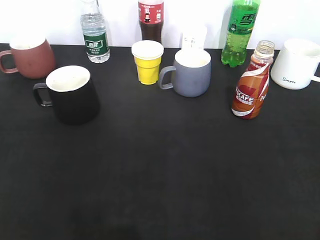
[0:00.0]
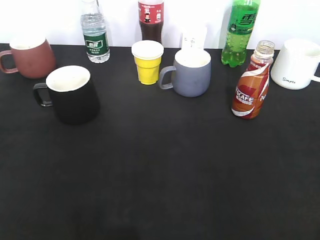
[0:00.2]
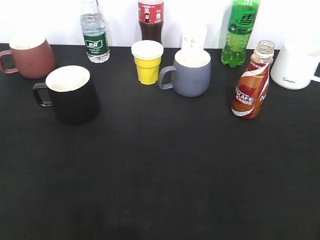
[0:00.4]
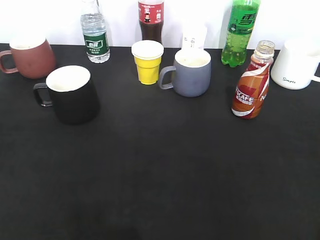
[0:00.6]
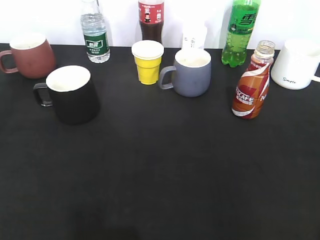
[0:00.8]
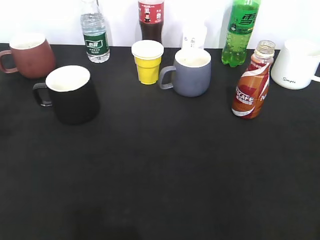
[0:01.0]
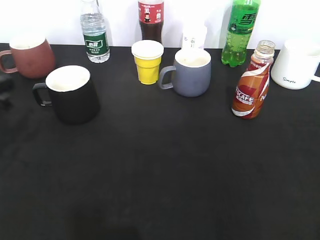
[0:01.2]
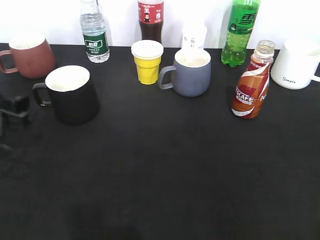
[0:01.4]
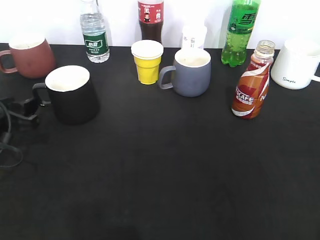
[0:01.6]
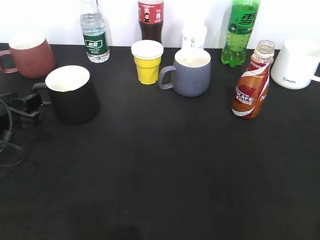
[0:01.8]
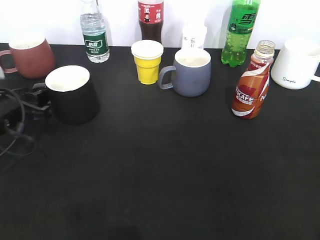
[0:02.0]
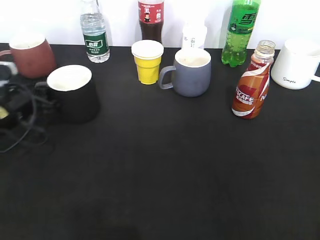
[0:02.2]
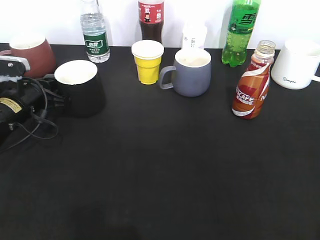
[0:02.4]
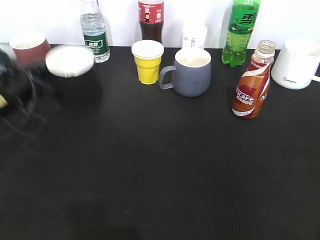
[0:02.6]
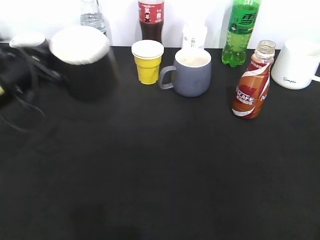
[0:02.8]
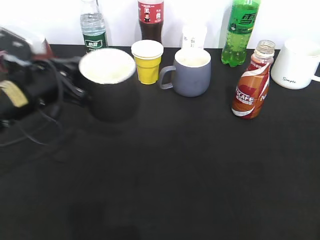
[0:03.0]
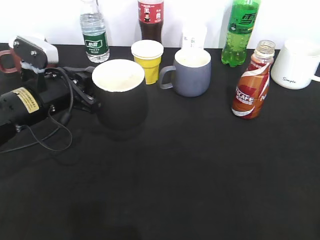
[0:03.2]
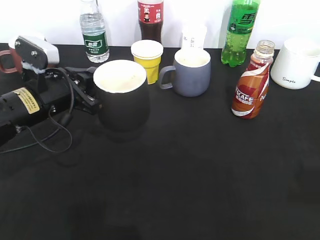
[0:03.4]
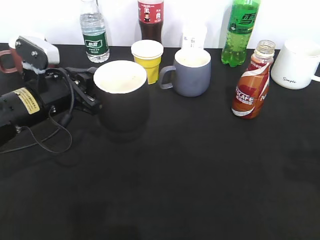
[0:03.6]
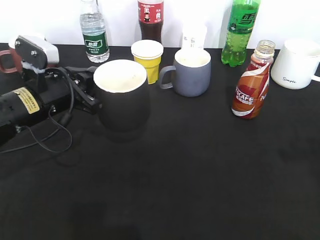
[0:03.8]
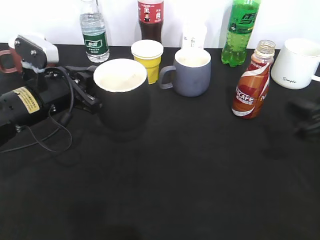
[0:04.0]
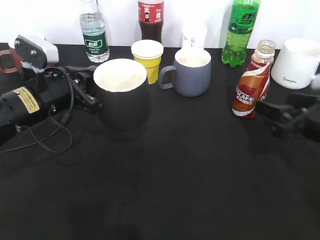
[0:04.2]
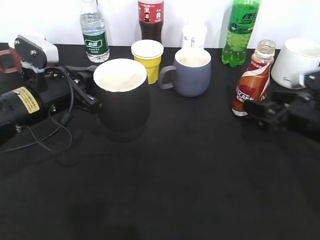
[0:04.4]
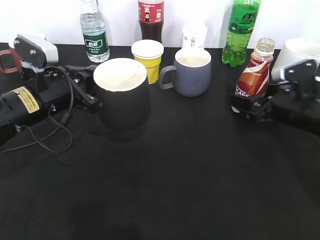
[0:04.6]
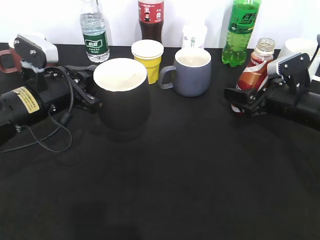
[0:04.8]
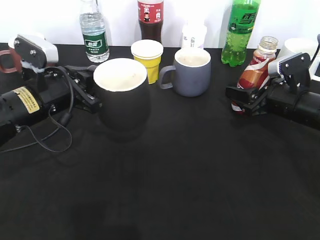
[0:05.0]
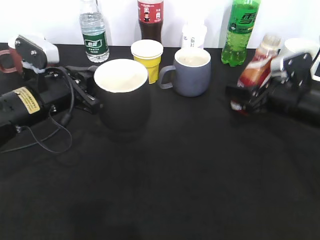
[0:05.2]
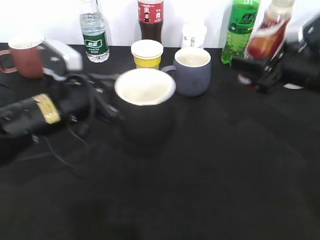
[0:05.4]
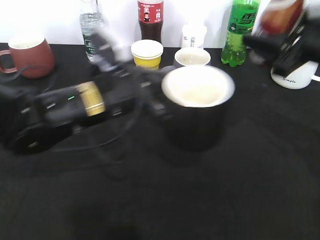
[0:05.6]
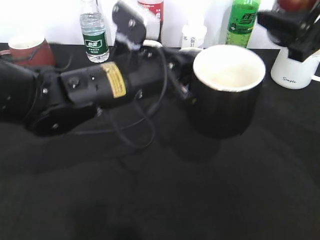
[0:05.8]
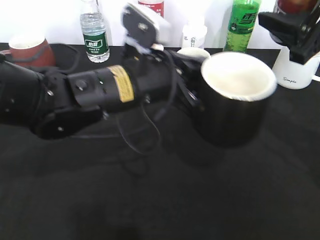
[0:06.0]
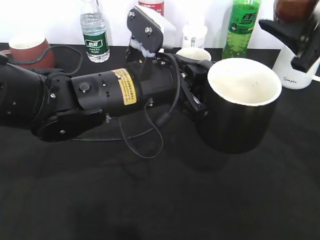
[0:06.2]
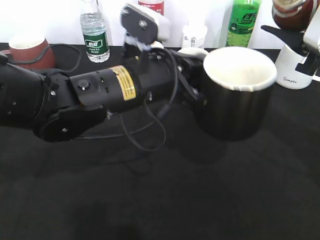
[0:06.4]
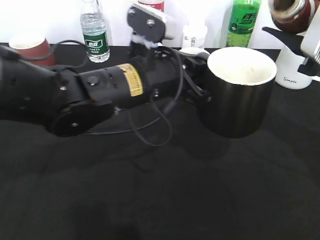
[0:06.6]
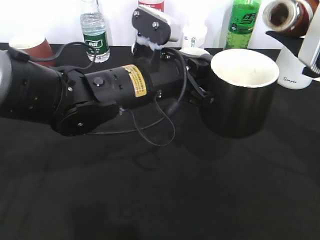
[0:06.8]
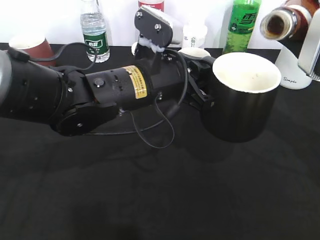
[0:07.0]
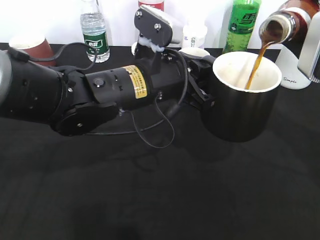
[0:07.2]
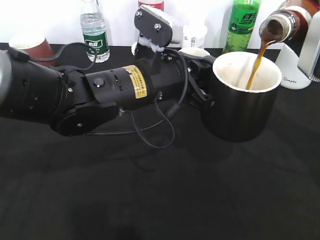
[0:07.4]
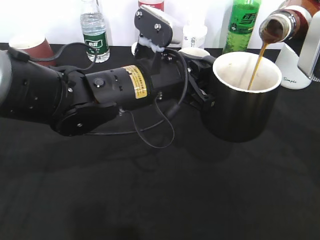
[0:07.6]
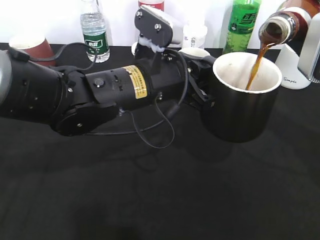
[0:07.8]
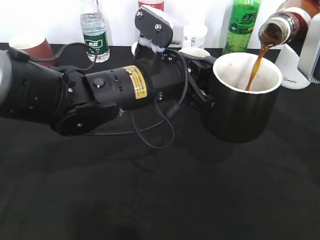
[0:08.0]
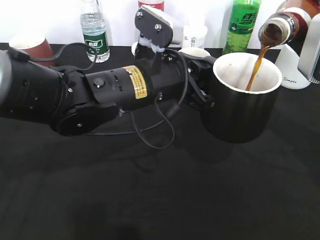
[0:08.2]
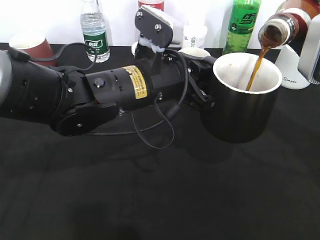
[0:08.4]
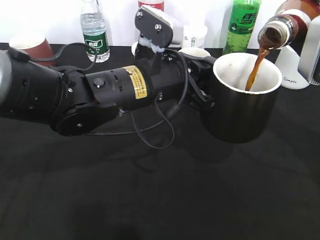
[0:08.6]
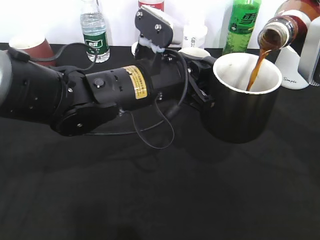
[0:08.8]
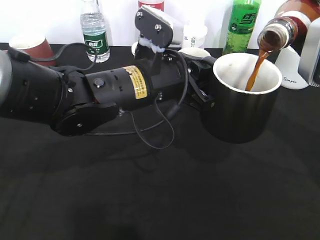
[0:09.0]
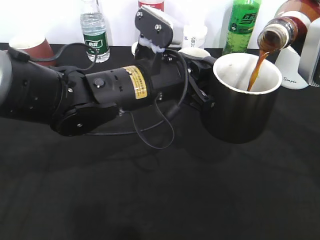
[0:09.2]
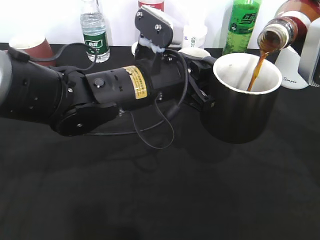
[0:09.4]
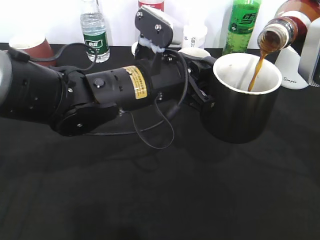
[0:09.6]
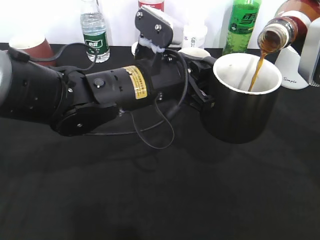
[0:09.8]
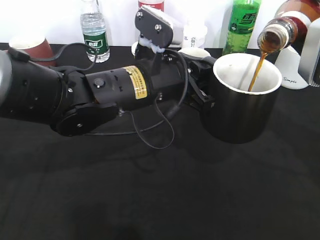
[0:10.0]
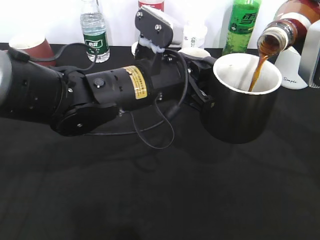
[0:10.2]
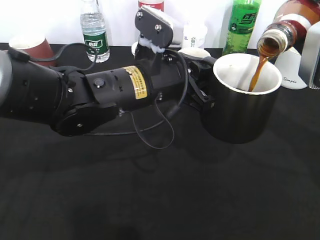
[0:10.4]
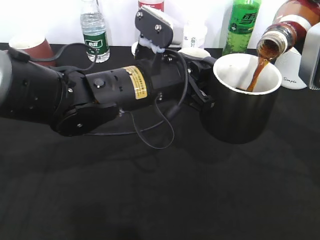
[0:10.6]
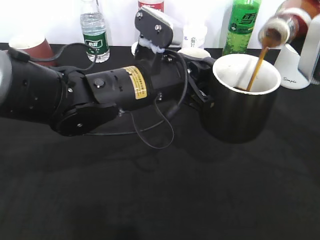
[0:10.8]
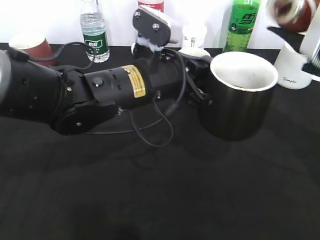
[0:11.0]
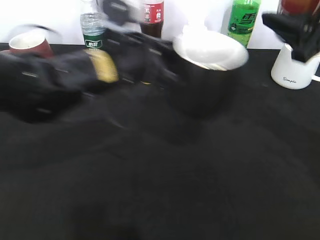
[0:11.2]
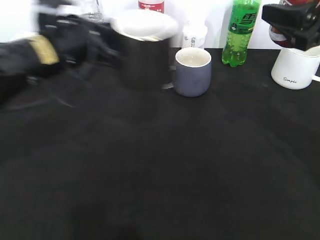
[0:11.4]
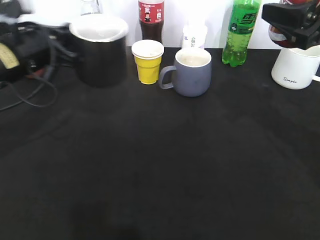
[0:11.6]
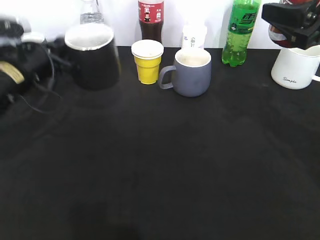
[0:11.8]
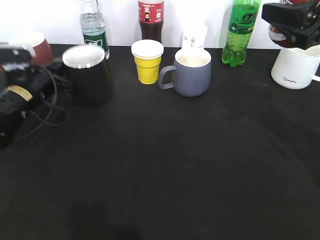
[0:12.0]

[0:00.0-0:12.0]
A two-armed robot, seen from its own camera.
Step, 0:00.6 to 0:02.2: Grasp the black cup with left gripper.
Step, 0:02.6 to 0:03.0: Lift the black cup with left gripper.
Step, 0:03.2 to 0:04.6: Grasp the bottle with coffee with right gripper.
Step, 0:05.0 to 0:11.0: Pour the coffee from bottle to cup with right gripper.
0:00.0 to 0:01.6: The left gripper moves forward and downward, roughly 30 cm, and opens its fingers.
0:01.6 to 0:03.0: The left gripper is displaced to the right by about 10 cm, and closes its fingers.
0:03.0 to 0:04.4: The right gripper is displaced forward and downward by some 35 cm, and opens up.
0:04.4 to 0:06.0: The left gripper heads to the right, covering approximately 15 cm; the right gripper goes some 15 cm upward, and closes up.
0:07.6 to 0:09.0: The grippers make only small movements.
0:09.0 to 0:10.4: Both grippers stay about where they are.
0:10.4 to 0:12.0: The left gripper is displaced to the left, forward and downward by roughly 25 cm.

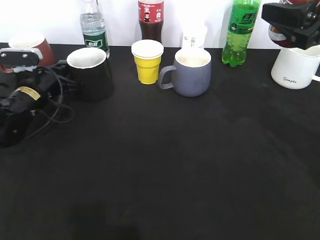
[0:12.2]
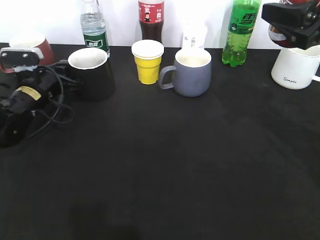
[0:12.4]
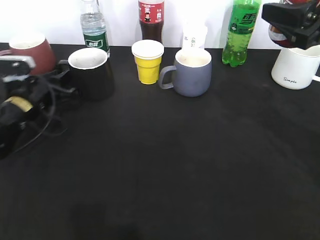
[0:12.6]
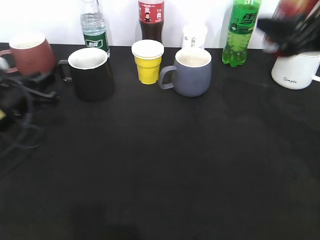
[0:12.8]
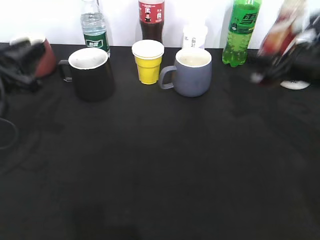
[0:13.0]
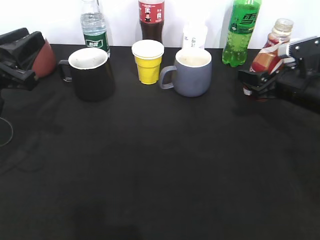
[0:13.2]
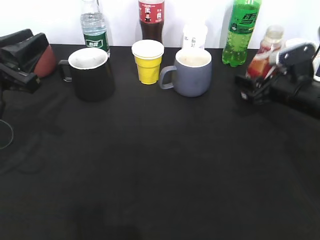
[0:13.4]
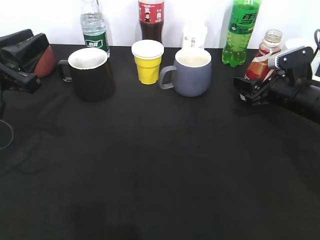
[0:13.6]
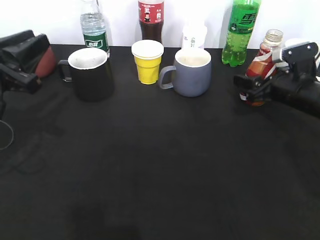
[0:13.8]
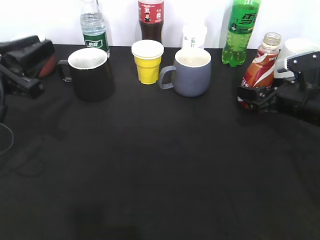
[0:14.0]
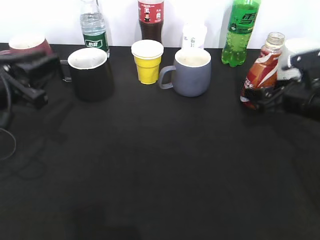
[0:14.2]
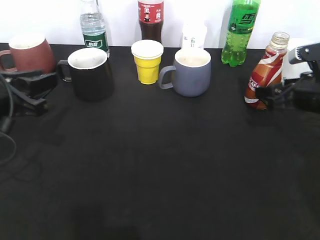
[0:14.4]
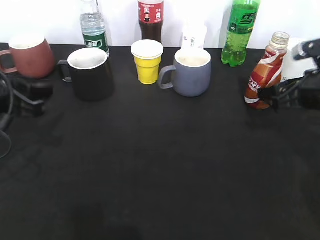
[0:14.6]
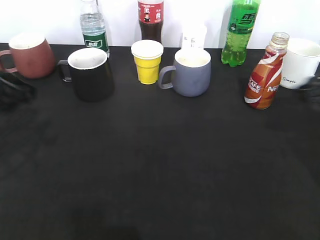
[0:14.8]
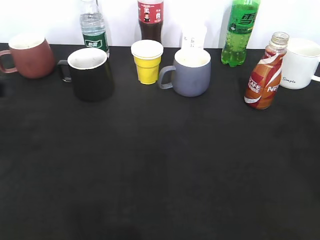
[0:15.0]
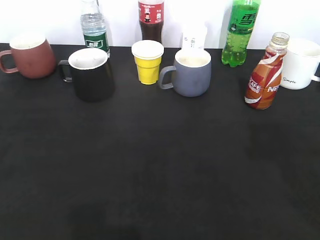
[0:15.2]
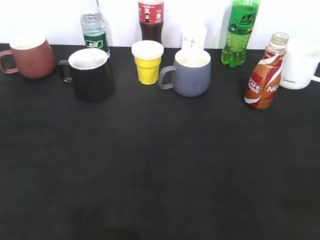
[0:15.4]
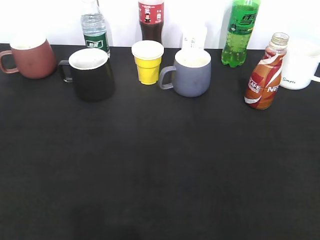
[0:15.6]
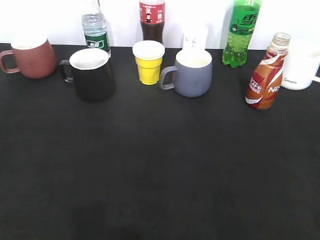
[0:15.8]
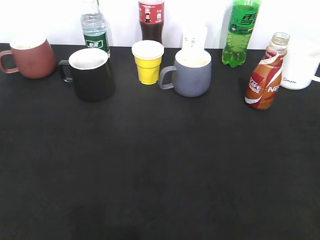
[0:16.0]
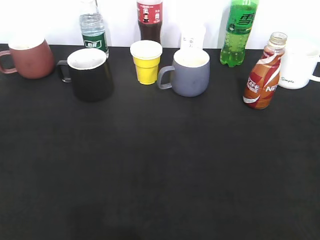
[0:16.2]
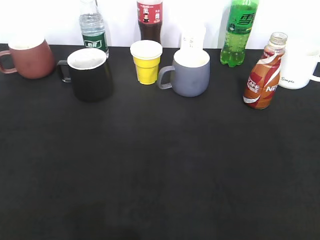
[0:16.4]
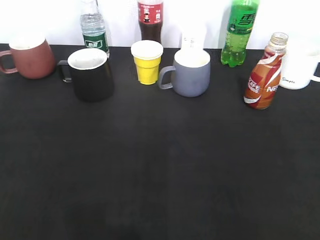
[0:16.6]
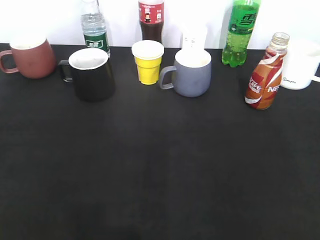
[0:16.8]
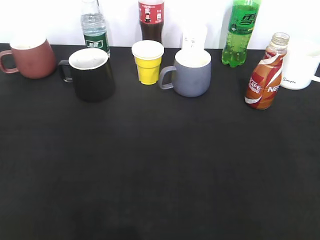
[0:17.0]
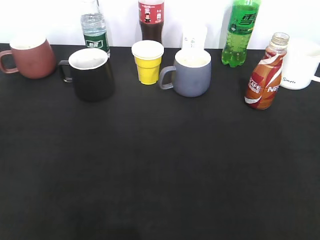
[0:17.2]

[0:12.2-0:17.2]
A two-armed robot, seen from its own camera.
Step, 0:12.8 to 0:14.4: Place the coffee bottle on the table with right gripper.
0:12.2 to 0:13.8: The left gripper goes approximately 20 cm backward and upward, and opens; the right gripper is displaced downward and forward by some 20 cm, and opens up.
0:13.8 to 0:15.6: The right gripper shifts approximately 40 cm backward and upward. The left gripper goes roughly 25 cm backward.

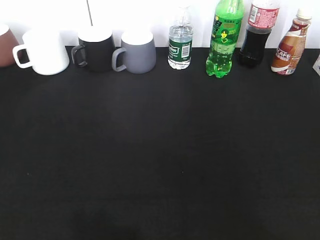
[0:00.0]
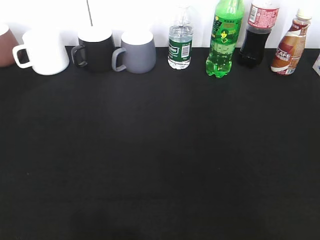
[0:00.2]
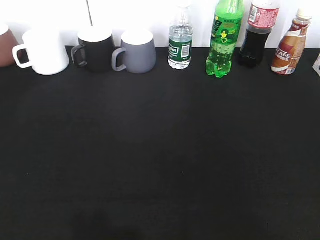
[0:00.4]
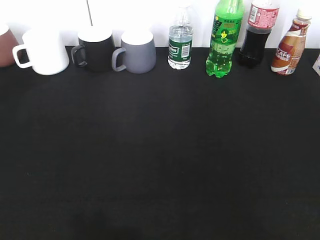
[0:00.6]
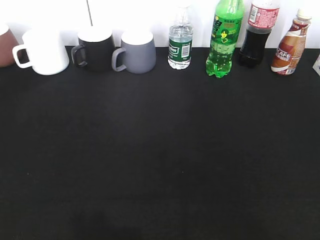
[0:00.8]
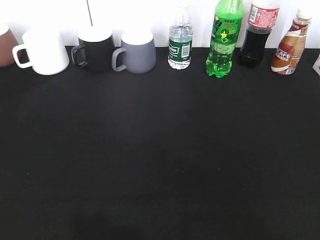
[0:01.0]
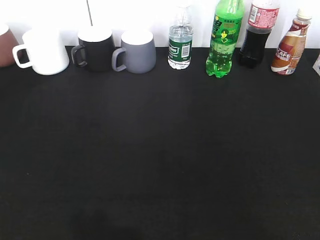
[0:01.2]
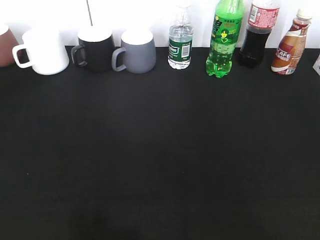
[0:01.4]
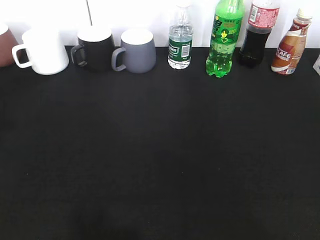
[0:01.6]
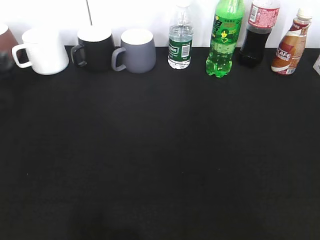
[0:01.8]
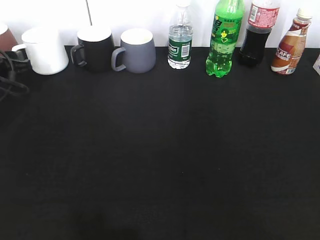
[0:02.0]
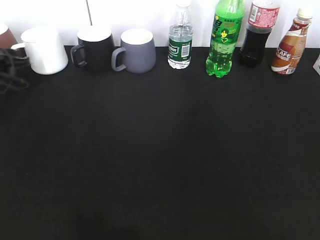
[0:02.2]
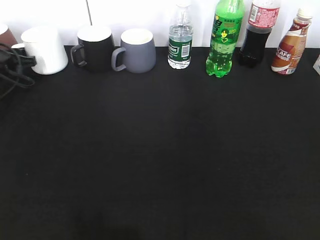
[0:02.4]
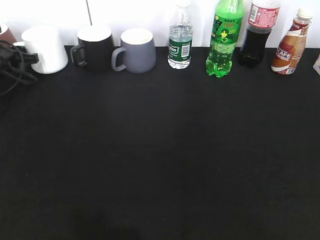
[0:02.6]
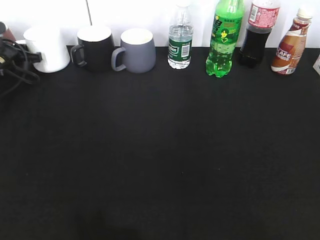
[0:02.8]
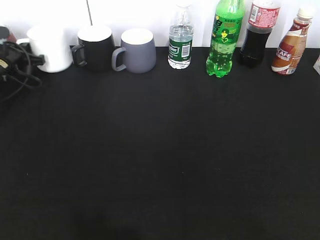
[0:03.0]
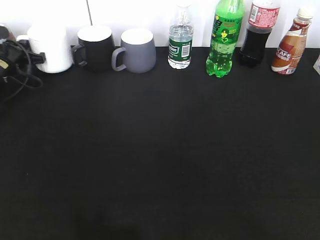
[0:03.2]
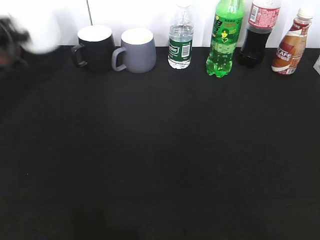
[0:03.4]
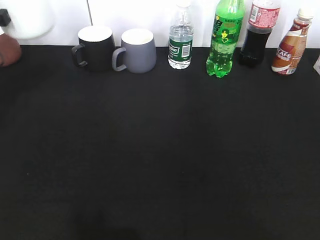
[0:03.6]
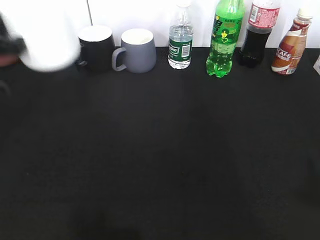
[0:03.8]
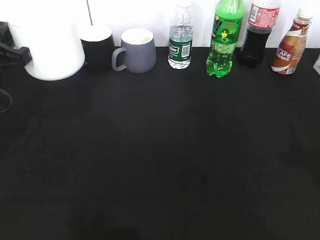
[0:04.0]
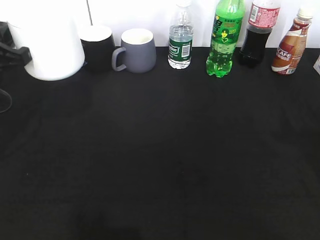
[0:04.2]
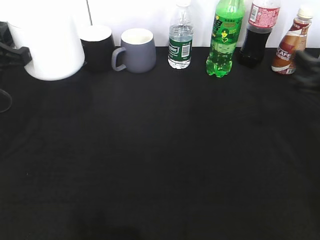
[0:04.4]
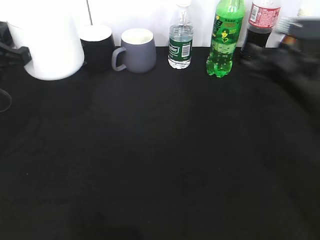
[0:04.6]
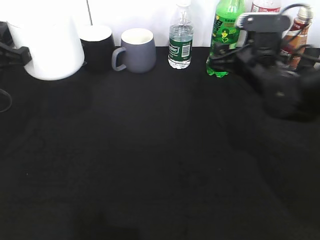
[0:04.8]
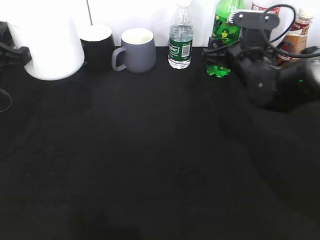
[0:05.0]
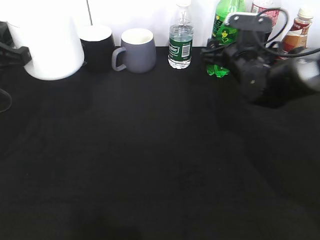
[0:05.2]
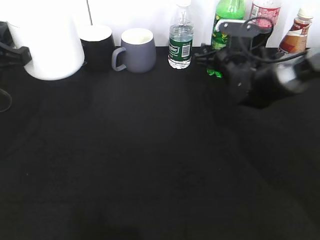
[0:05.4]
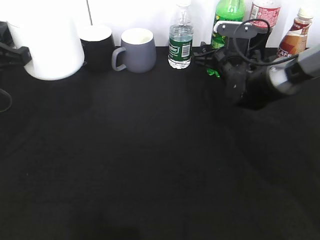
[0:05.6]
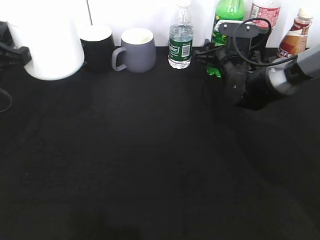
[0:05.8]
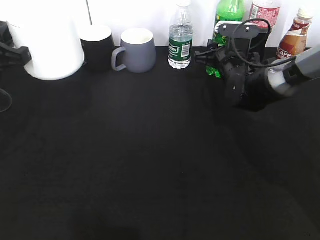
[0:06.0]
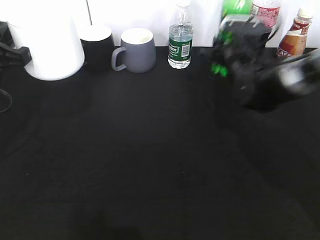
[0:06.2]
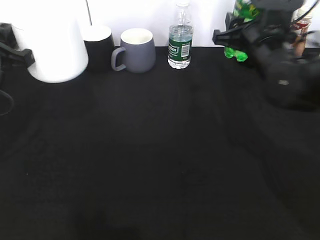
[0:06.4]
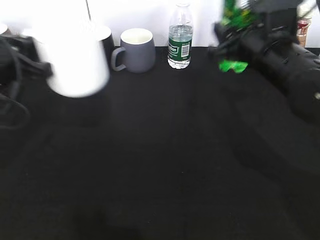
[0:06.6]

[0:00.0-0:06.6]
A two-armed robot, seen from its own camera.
Step, 0:00.0 to 0:03.0: Grasp the white cup with left gripper.
Step, 0:03.2 to 0:04.2: Lift the white cup with left gripper.
Step, 0:04.4 to 0:05.8: Grasp the bottle with sprite with right gripper.
0:00.0 to 0:01.6: The left gripper is displaced forward by some 25 cm.
0:01.6 to 0:03.2: The left gripper is displaced forward by roughly 20 cm, and closes.
0:03.2 to 0:05.0: The left gripper heads backward and upward, covering roughly 20 cm. The right gripper is displaced forward by about 40 cm, and opens its fingers.
0:05.0 to 0:06.6: The right gripper travels backward and upward by approximately 10 cm, and closes up.